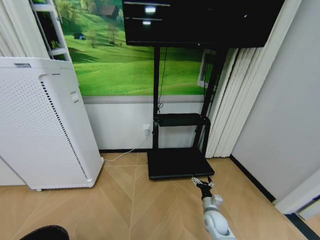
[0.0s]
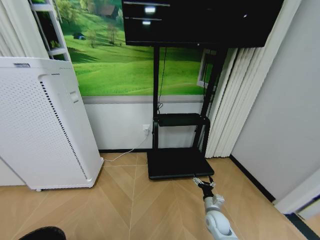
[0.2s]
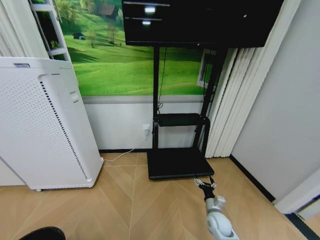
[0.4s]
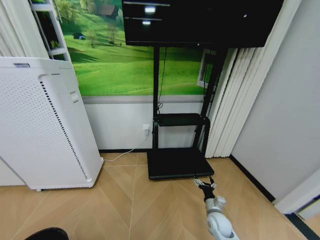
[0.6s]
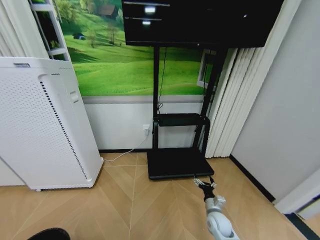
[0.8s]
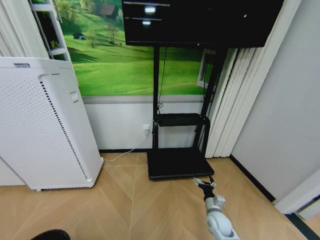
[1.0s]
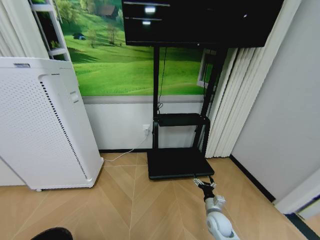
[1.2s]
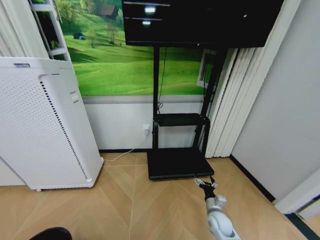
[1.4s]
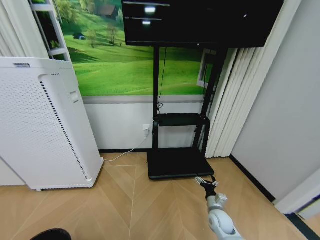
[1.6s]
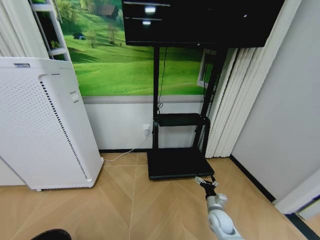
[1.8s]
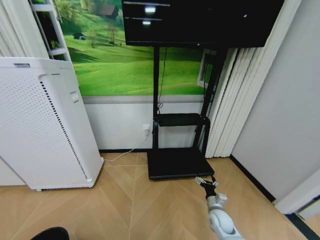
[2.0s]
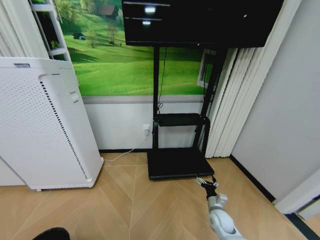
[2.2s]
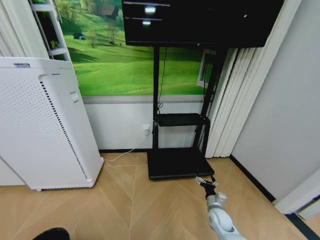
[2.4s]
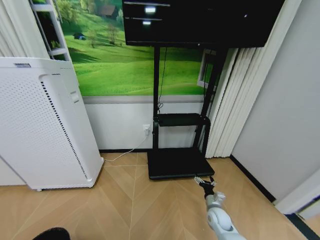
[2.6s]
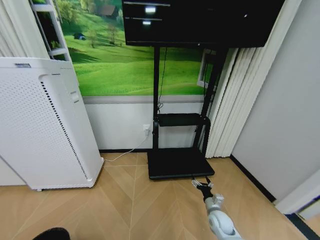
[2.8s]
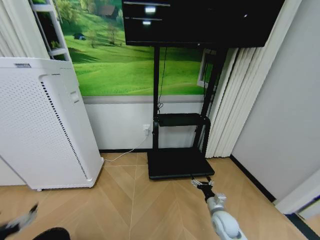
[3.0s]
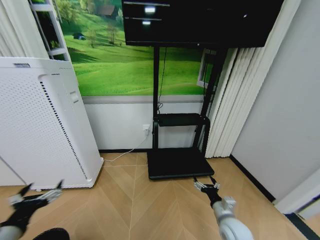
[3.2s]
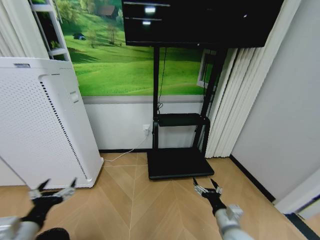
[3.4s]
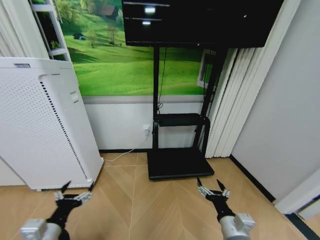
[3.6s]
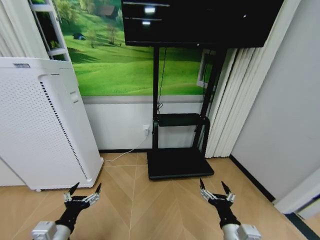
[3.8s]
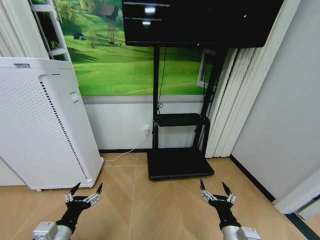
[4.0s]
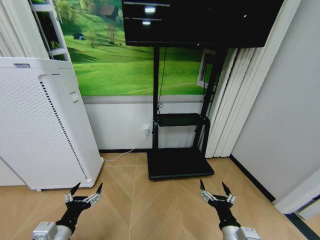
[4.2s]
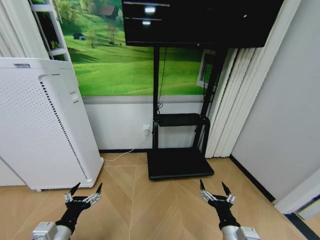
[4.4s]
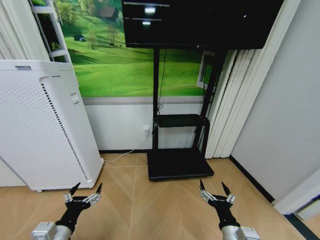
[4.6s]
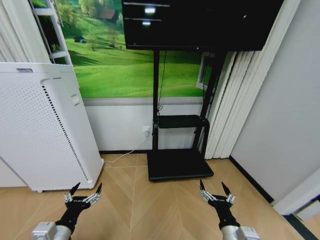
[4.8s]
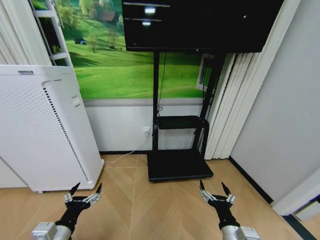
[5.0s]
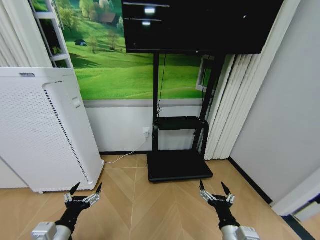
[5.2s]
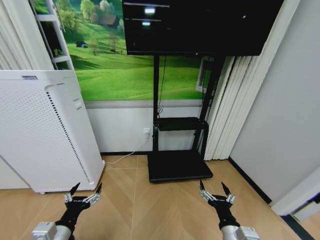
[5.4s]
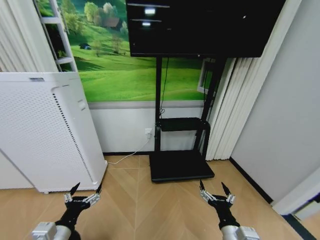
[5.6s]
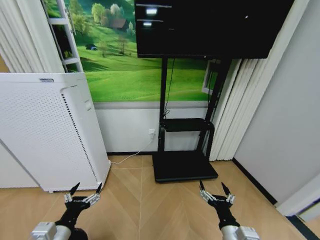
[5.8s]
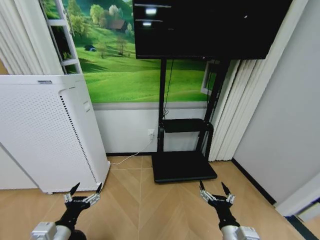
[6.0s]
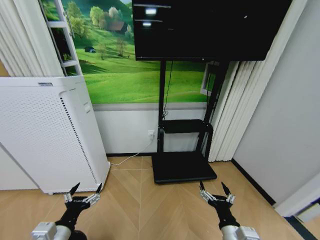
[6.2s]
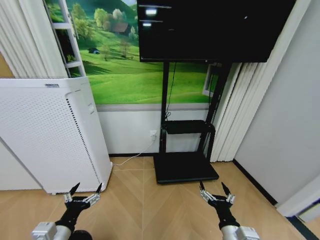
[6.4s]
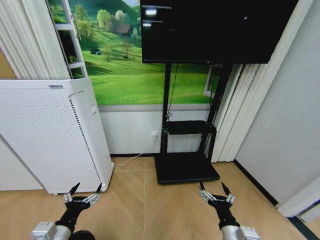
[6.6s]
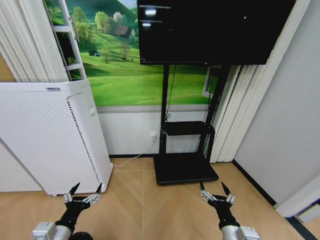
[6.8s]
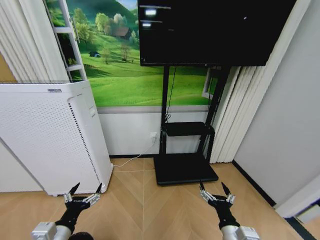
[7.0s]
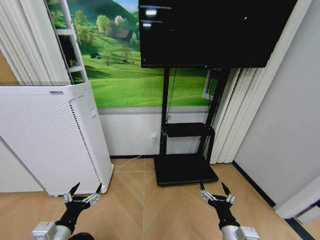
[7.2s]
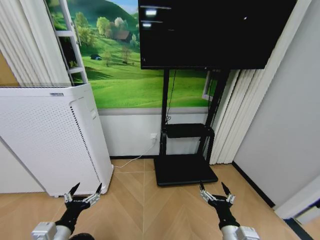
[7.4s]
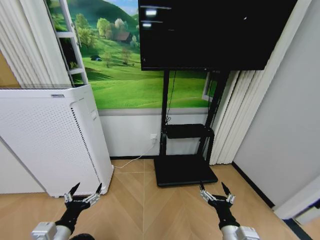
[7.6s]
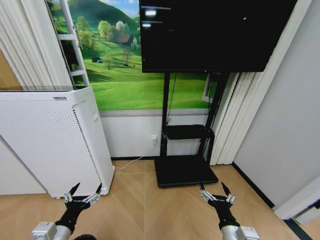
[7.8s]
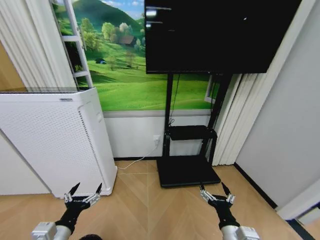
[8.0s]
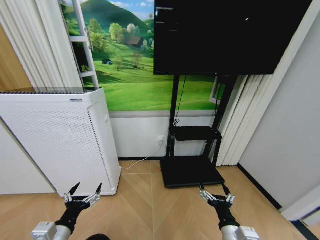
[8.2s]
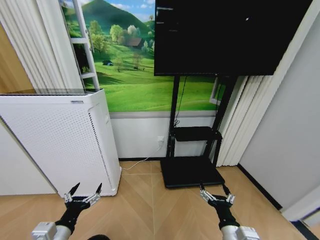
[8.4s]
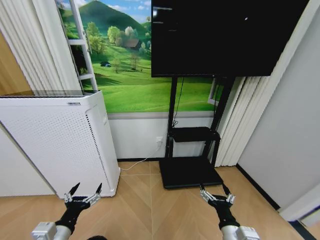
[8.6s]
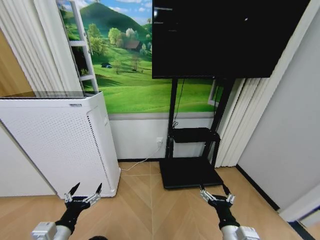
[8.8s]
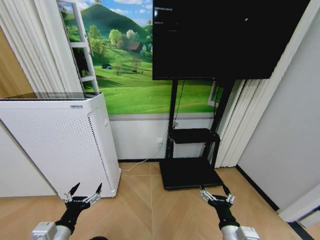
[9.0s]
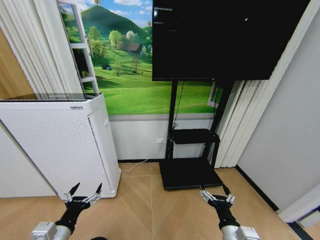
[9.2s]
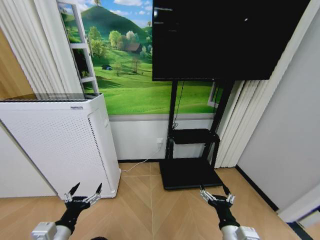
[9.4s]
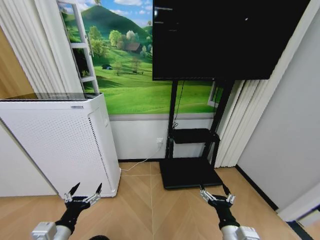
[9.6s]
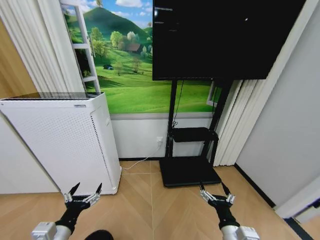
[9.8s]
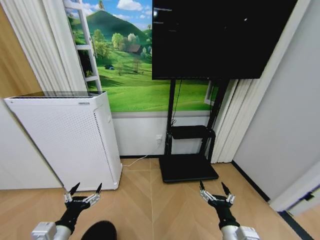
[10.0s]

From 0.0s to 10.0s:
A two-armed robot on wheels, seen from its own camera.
Task of the whole recording: Pick up the trash bin and place the garbage on the floor into it.
From 0.0s to 1.4s: The left gripper heads downward, covering some 10 cm.
From 1.4s to 2.8s: The left gripper is displaced upward by approximately 10 cm, and opens its fingers.
From 2.8s to 4.2s: The right gripper is displaced backward, upward and to the left by roughly 25 cm; the left gripper shifts approximately 15 cm to the right and forward.

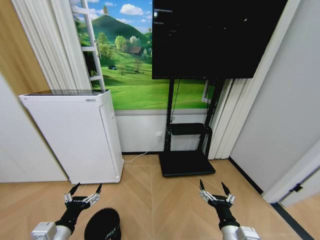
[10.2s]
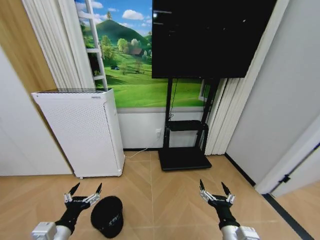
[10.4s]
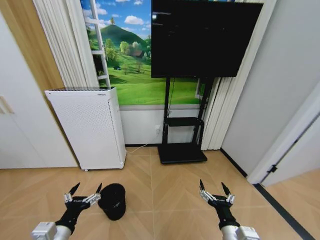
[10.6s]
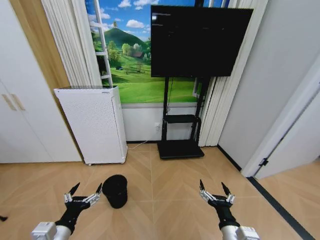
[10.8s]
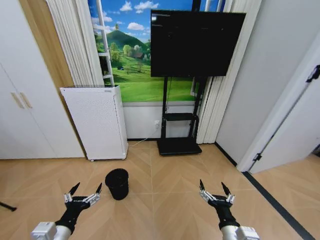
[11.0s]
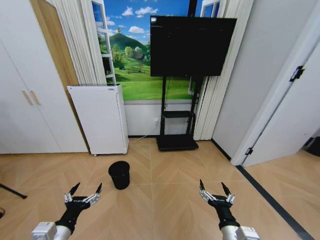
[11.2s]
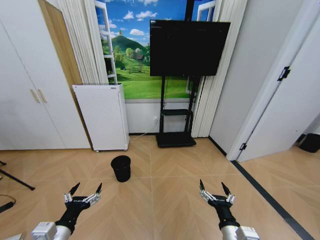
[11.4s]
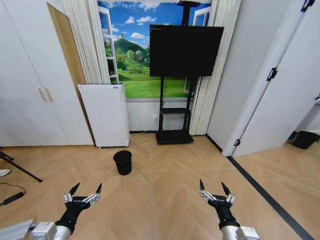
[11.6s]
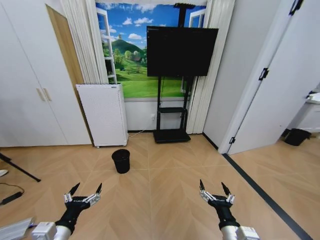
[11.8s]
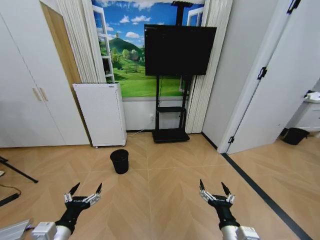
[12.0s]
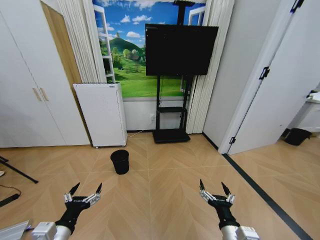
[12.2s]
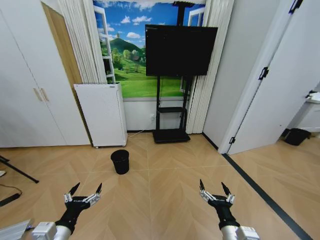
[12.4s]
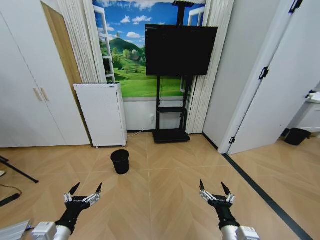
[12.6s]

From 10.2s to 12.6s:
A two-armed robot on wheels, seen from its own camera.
Task of the whole recording: Pick up the trash bin and place the garbage on the floor into it.
From 11.4s to 12.6s: Both grippers stay about where they are.
